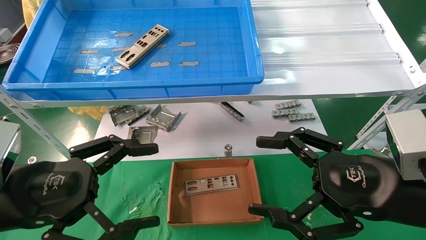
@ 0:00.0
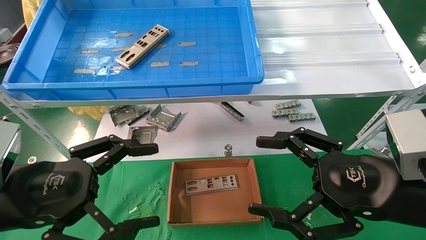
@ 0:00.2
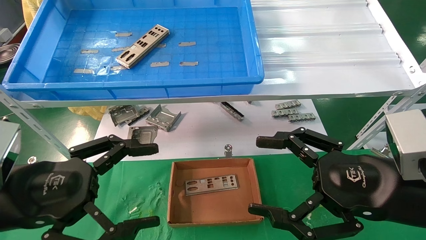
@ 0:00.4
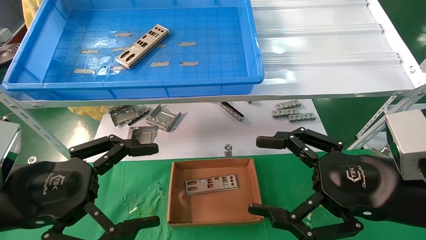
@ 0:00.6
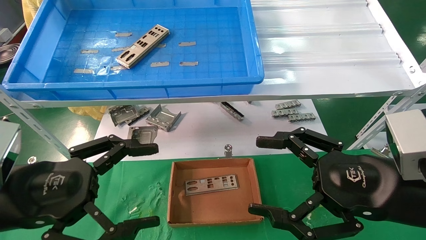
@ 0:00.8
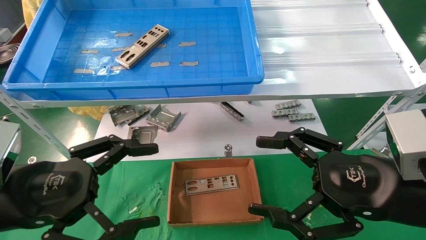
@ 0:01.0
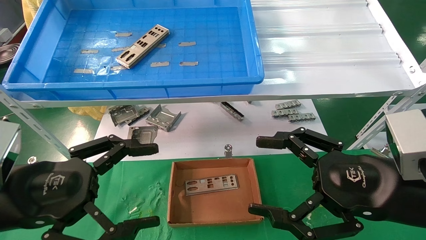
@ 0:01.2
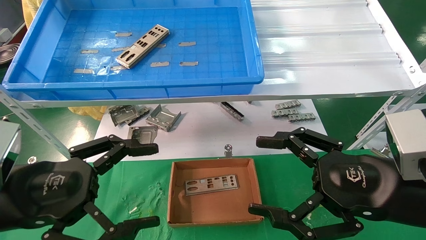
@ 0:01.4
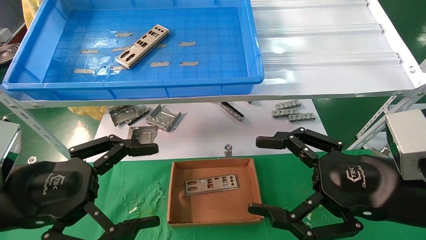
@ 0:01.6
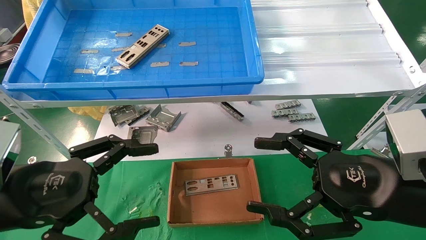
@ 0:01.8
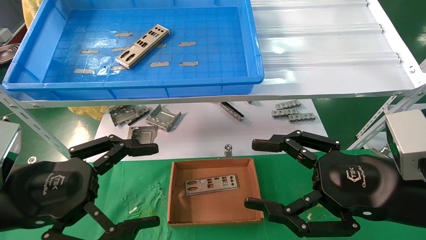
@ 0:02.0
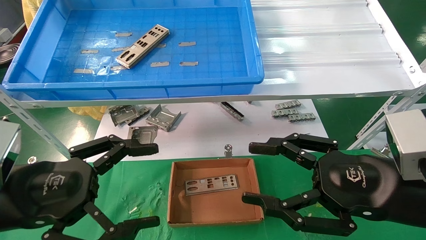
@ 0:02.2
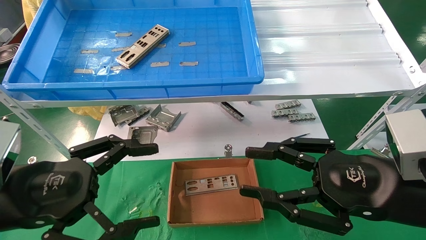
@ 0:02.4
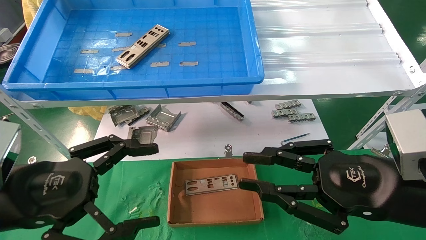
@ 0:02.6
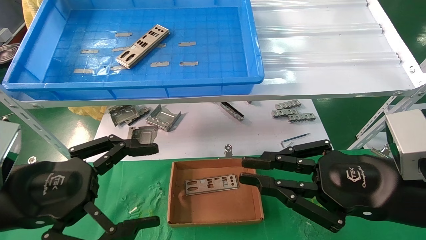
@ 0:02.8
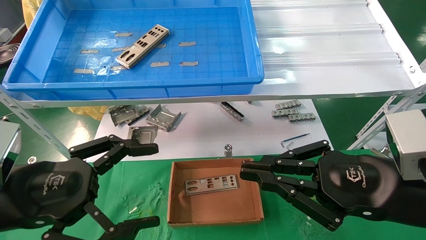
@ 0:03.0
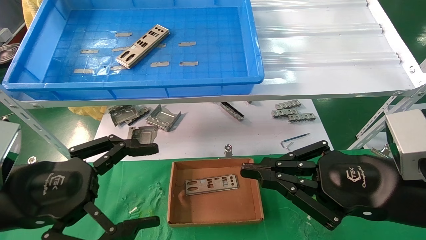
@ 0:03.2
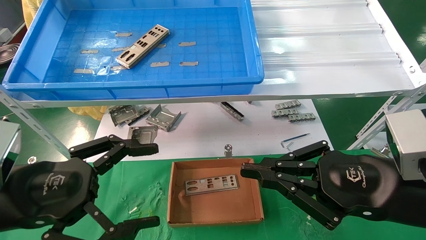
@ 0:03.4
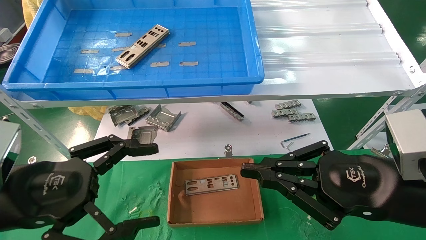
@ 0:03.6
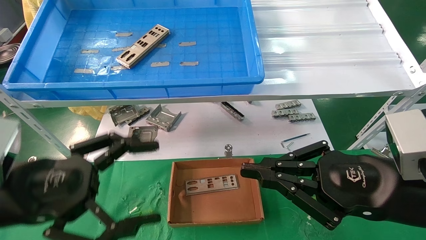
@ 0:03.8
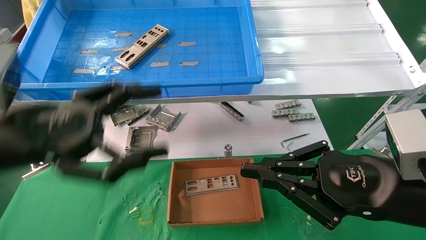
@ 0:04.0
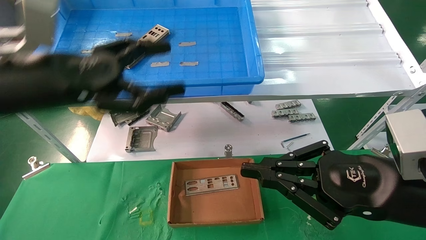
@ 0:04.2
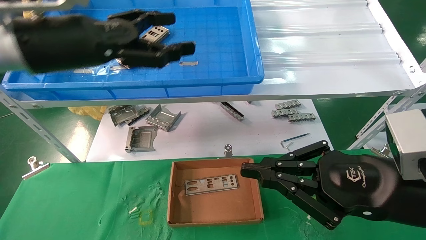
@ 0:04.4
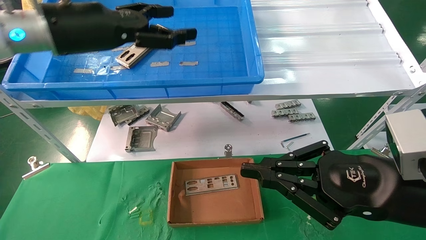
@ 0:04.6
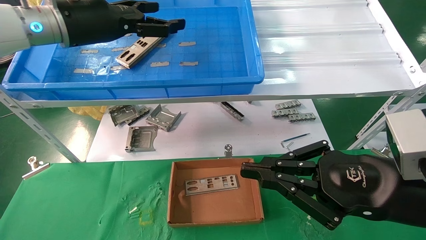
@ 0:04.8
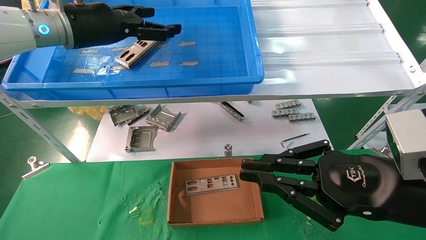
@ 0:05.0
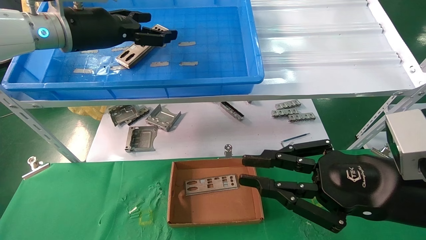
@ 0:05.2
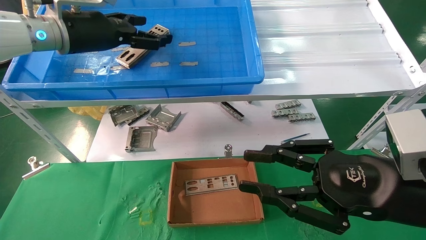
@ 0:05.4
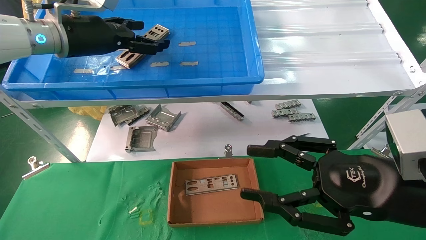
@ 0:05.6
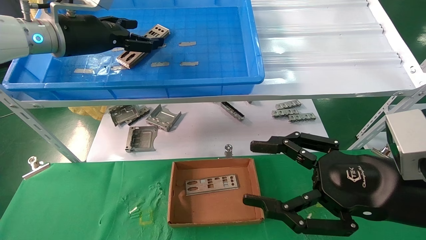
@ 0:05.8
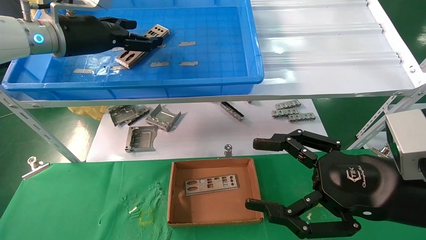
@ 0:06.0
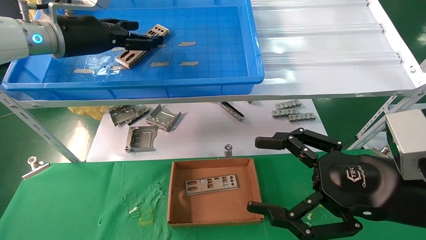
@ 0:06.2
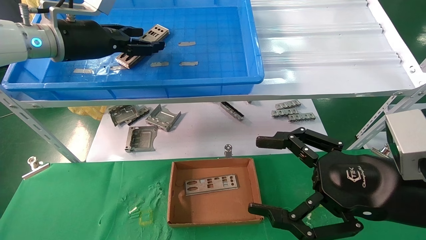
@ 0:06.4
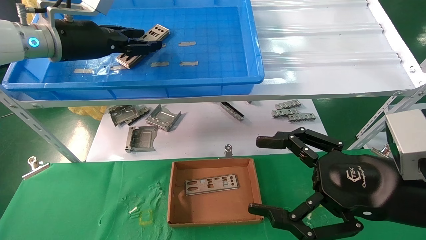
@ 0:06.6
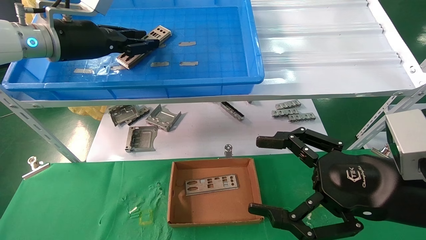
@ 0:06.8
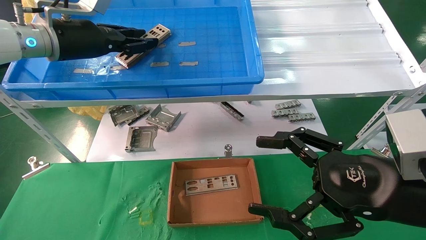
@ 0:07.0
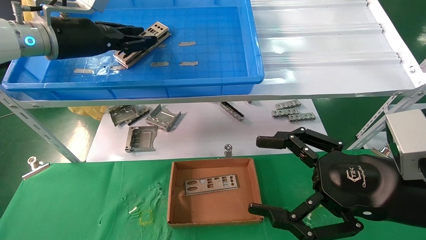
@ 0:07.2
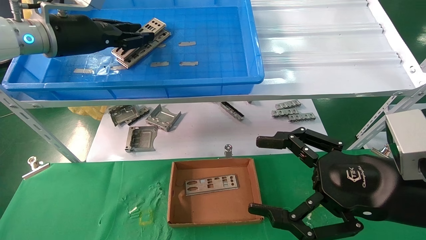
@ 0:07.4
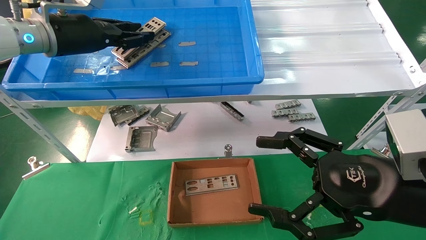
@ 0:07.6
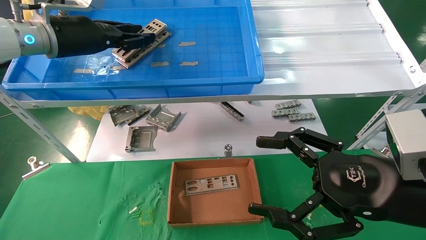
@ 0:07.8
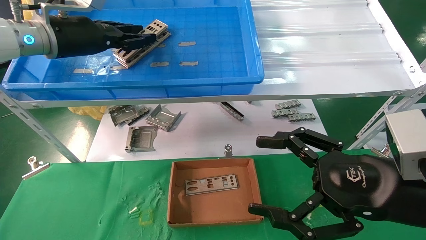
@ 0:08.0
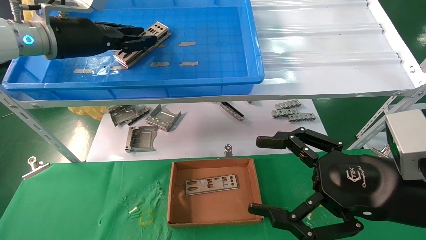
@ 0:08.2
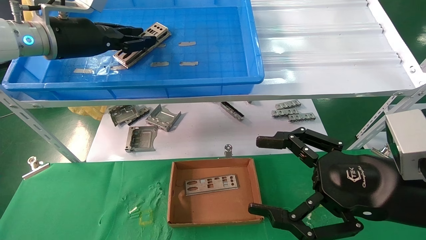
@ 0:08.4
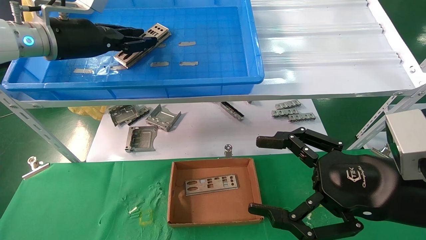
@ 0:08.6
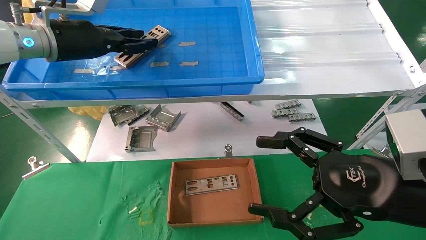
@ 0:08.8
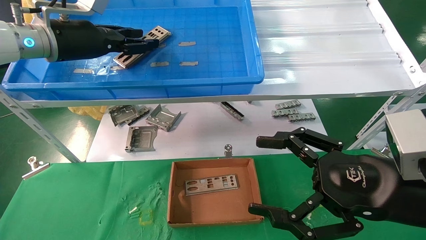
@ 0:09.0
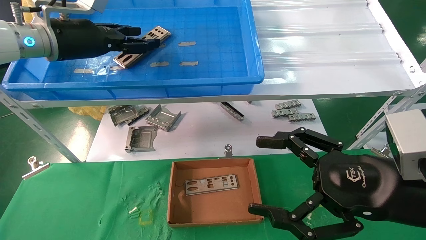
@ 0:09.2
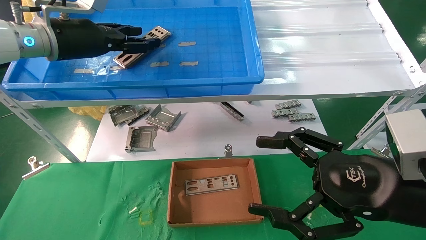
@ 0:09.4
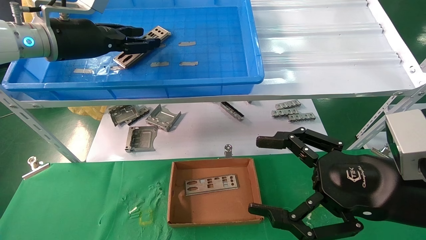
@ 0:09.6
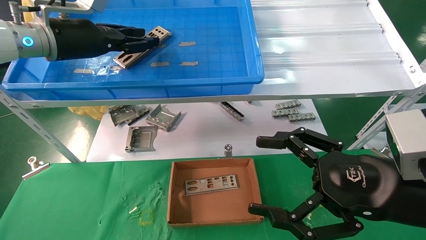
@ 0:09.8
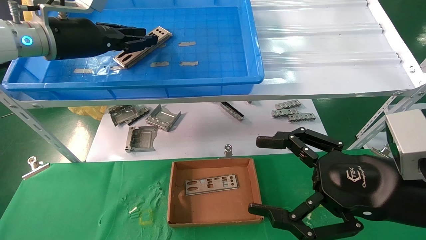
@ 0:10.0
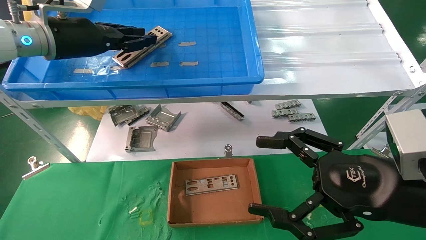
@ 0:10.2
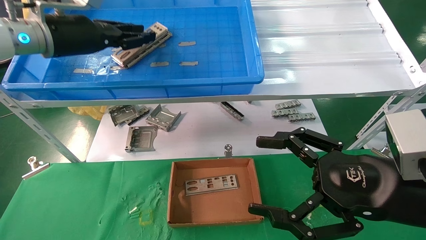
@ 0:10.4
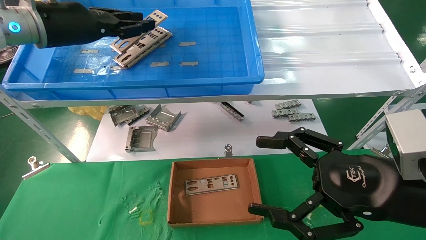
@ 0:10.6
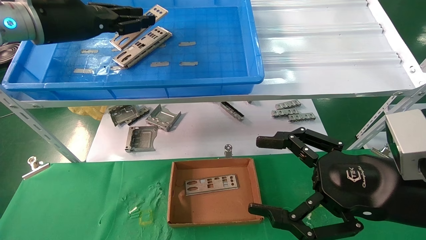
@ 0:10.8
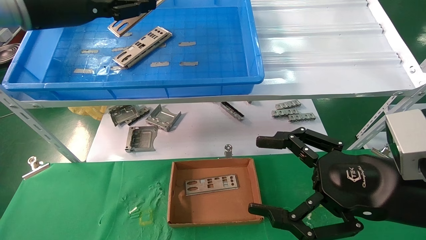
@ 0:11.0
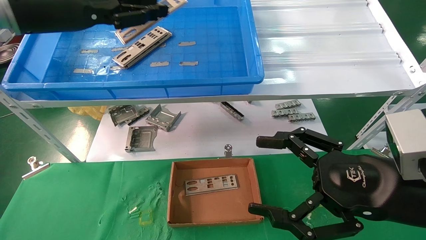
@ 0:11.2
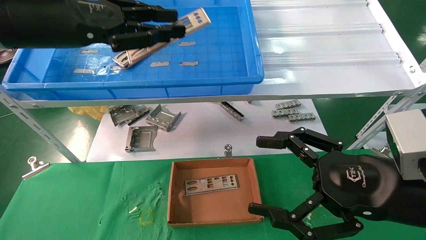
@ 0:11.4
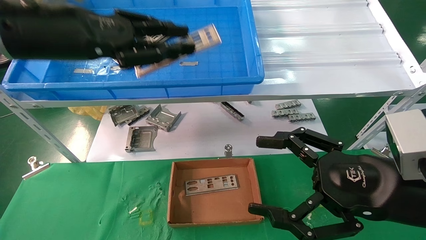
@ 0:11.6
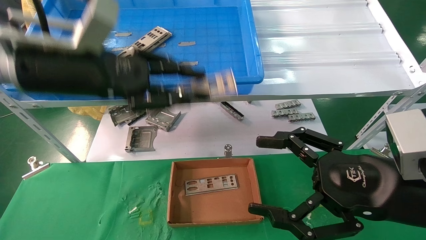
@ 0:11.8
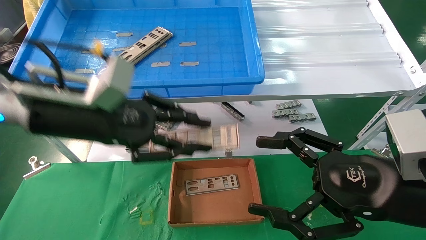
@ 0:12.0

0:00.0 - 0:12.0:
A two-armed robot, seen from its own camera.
Task of the whole recording: pick up the parts on the tray and put them in the cardboard box.
Step, 0:03.8 - 0:10.2: Pick up the IO bracket from the container box.
0:00.0 - 0:01.6: The two grippers keep their place.
0:01.6 - 0:03.0: The right gripper closes up.
0:03.0 - 0:04.4: The left gripper goes about 20 cm upward and forward.
0:04.4 - 0:06.0: The right gripper opens up; the left gripper heads forward, covering about 10 cm.
0:06.0 - 0:07.6: The left gripper closes.
0:07.6 - 0:09.0: Neither gripper changes place.
0:09.0 - 0:10.4: The grippers stay close to where they were, moving slightly.
0:10.4 - 0:12.0: The left gripper goes some 15 cm downward, backward and to the right.

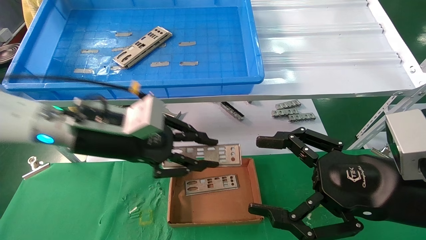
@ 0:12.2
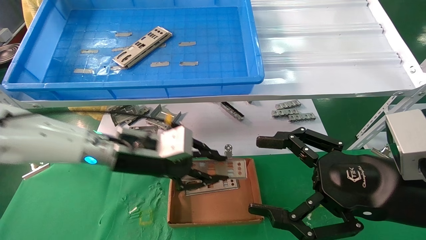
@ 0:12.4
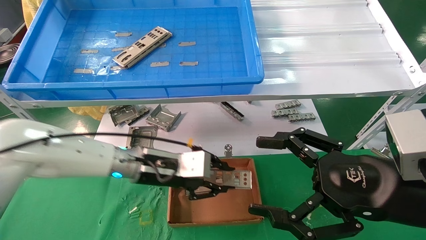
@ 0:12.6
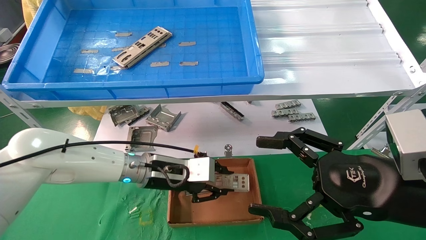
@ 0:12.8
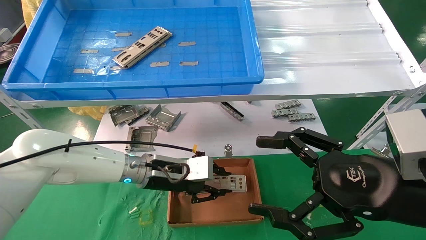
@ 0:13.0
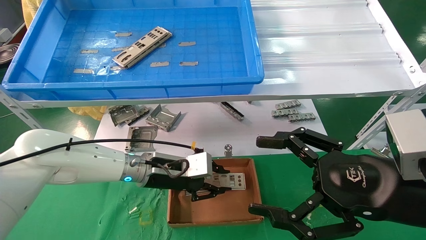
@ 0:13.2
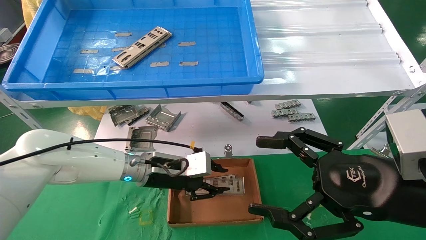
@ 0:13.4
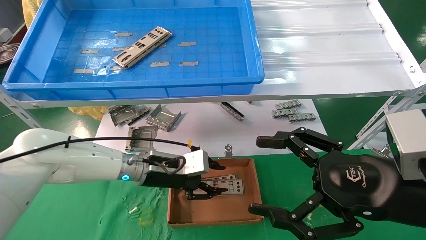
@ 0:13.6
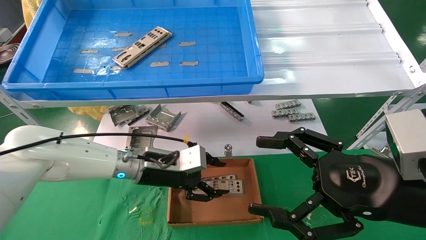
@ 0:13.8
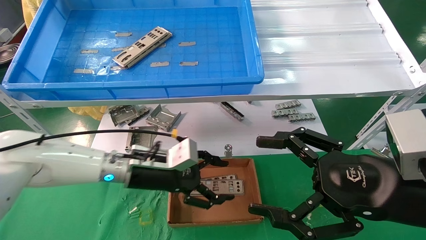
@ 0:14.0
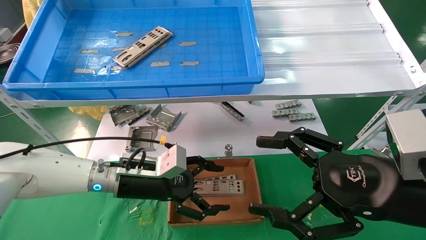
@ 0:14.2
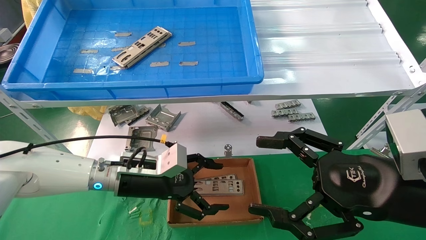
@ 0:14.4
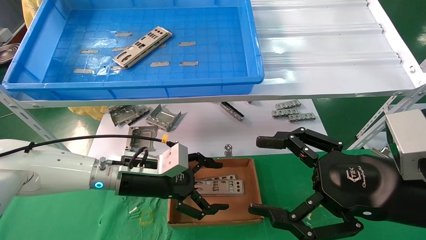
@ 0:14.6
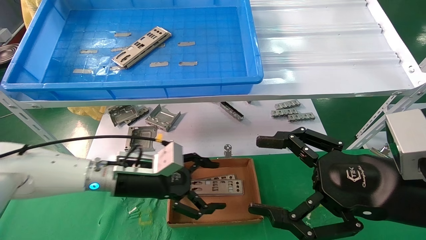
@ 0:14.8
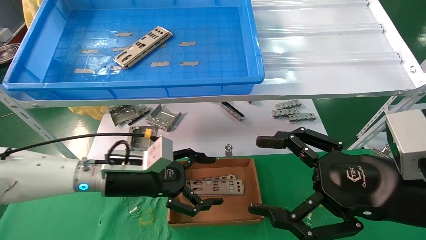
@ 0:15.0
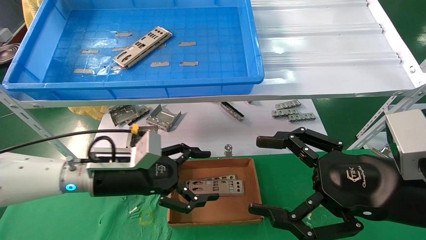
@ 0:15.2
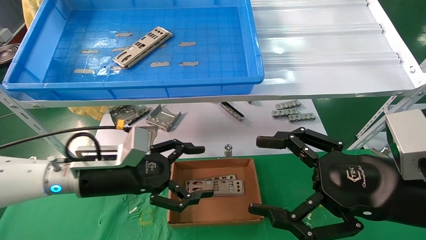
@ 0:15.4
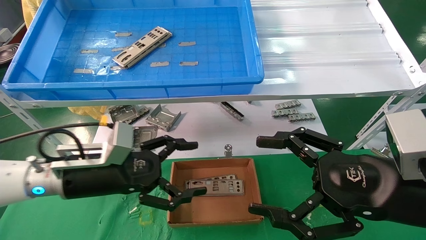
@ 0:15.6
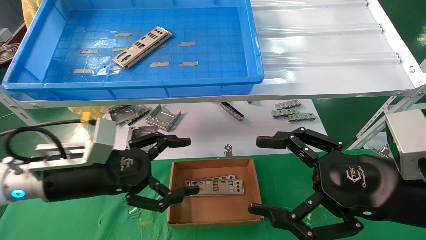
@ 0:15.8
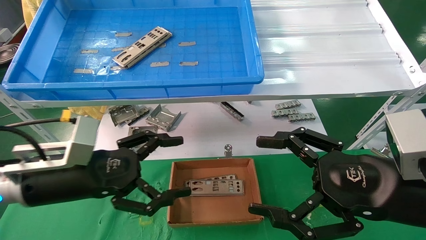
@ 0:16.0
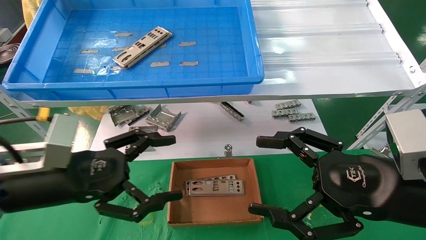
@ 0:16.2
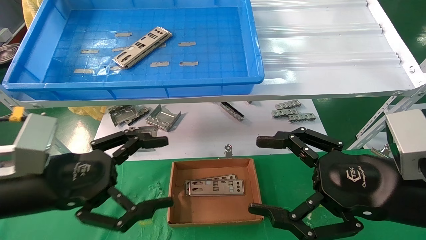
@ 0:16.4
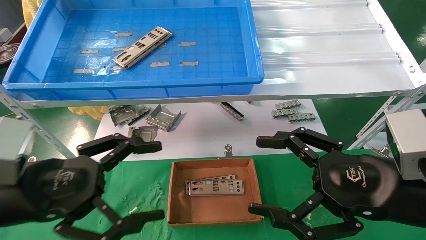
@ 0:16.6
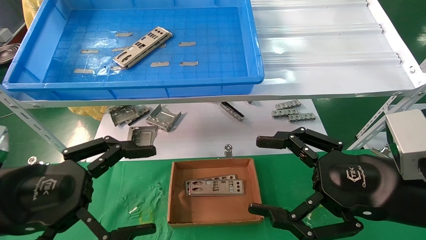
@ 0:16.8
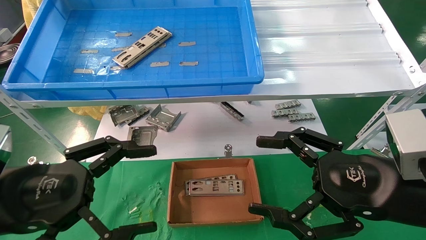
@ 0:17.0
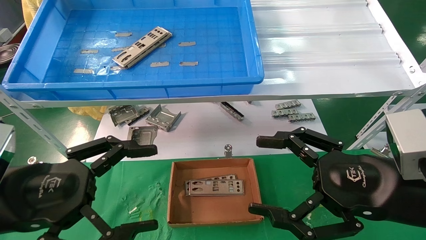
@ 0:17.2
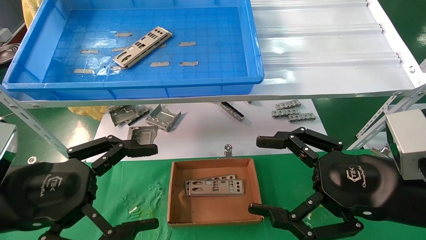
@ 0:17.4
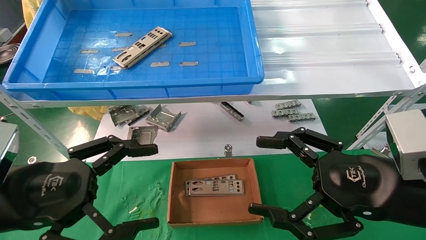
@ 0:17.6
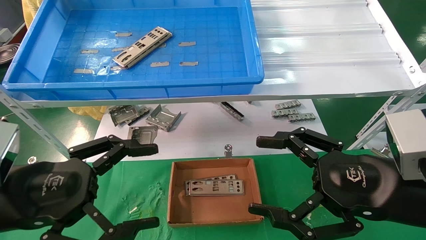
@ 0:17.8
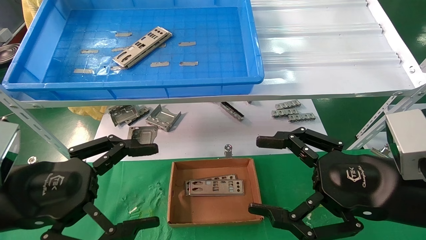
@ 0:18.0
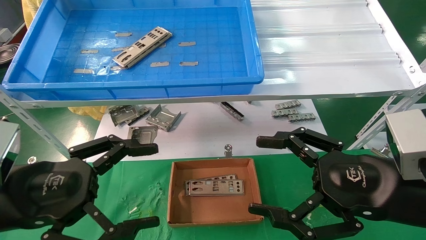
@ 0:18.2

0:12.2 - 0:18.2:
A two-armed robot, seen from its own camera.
Task of the whole recording: pick up the parts on the tray and put them in the cardboard box.
0:12.2 - 0:13.8: The left gripper goes approximately 15 cm downward and forward.
0:13.8 - 0:15.2: The left gripper heads to the left and backward, covering about 10 cm, and opens.
0:15.2 - 0:16.6: The left gripper moves backward, to the left and upward, roughly 15 cm.
0:16.6 - 0:18.2: The grippers move only a little.
